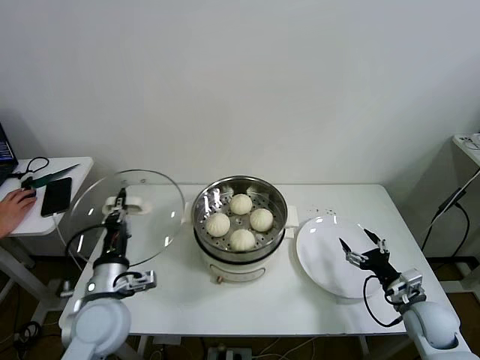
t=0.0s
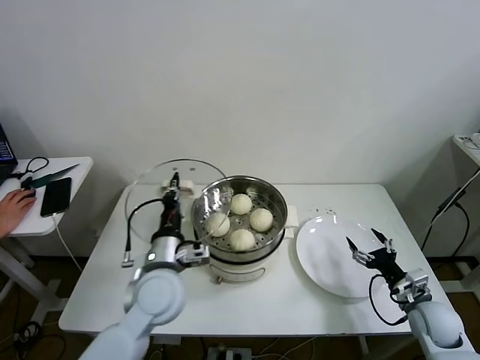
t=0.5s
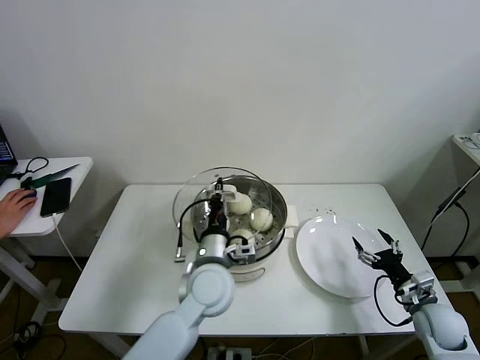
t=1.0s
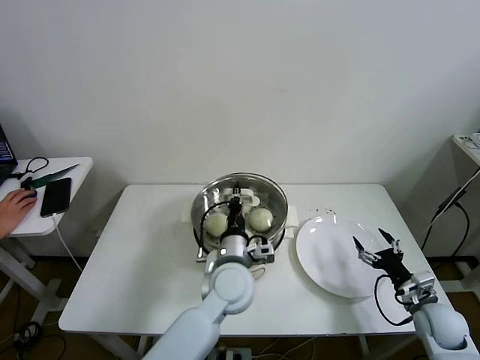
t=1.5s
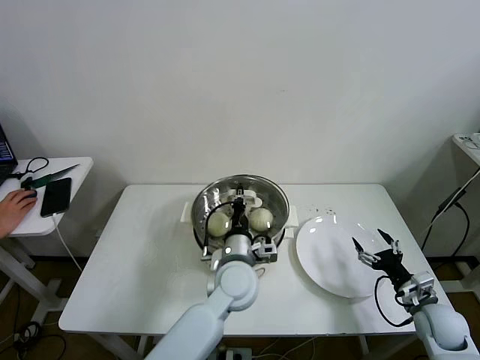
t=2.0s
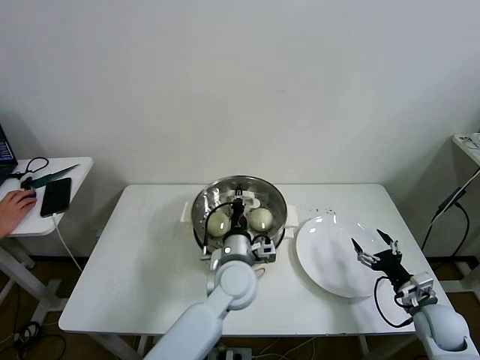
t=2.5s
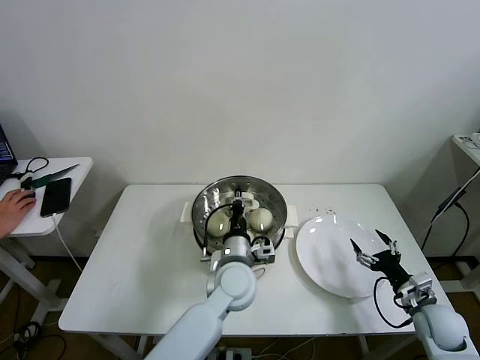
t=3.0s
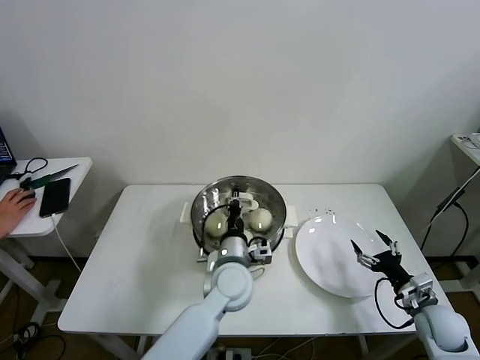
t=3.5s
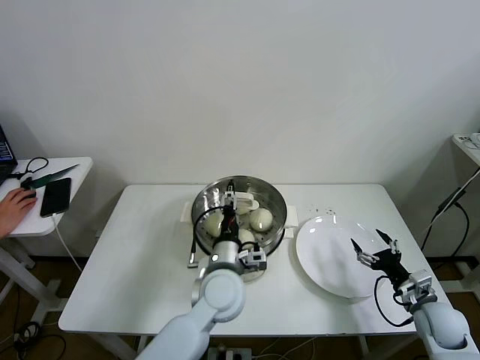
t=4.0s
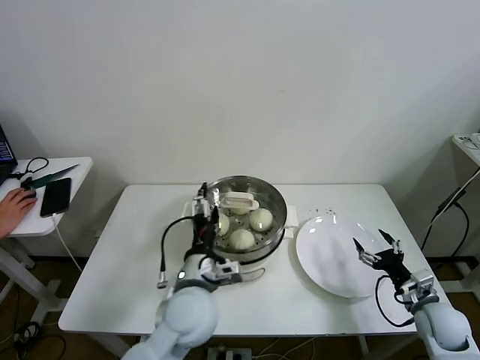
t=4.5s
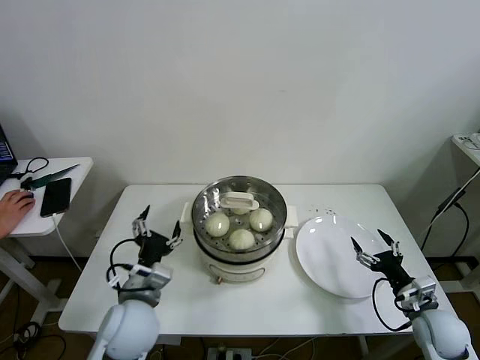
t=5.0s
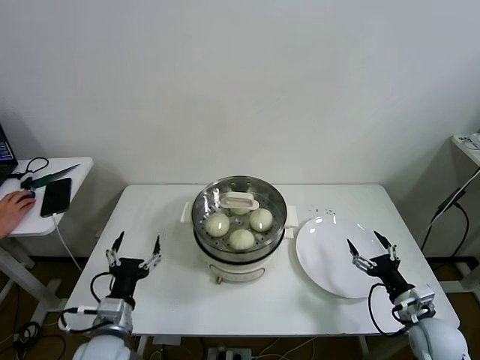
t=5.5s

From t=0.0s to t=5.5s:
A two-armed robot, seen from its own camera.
Task of the whole recording: take steamed baozi put them in steamer then cover it.
Step, from t=0.0s to t=3.5s: Place the pot lid on the steamer with left gripper.
From t=0.0s to t=2.0s: The left gripper moves to the right, about 25 cm.
From t=2.0s to t=3.5s: The grippers make only small movements.
From t=3.5s to t=5.5s: The left gripper goes about 25 cm to the left and backward, and opens up.
